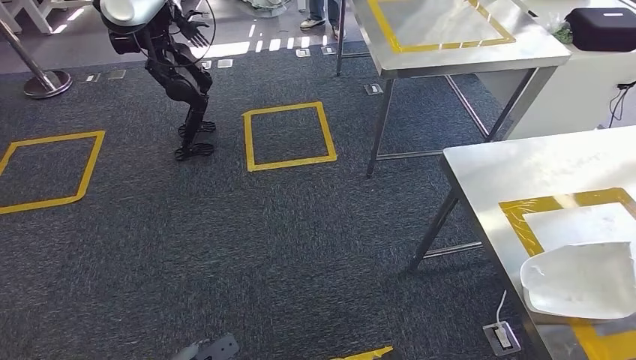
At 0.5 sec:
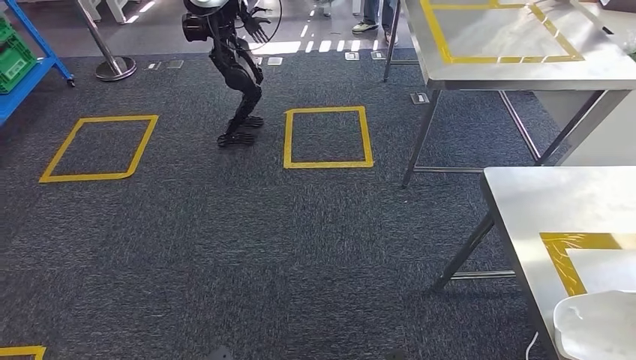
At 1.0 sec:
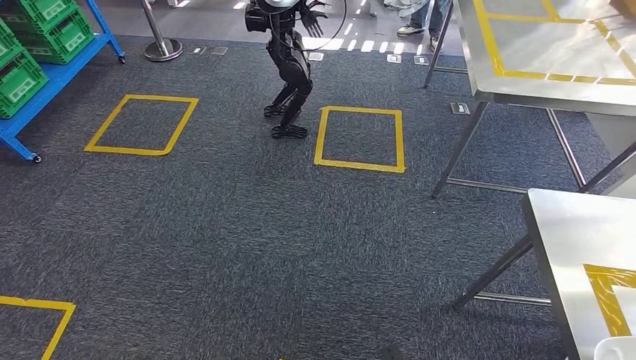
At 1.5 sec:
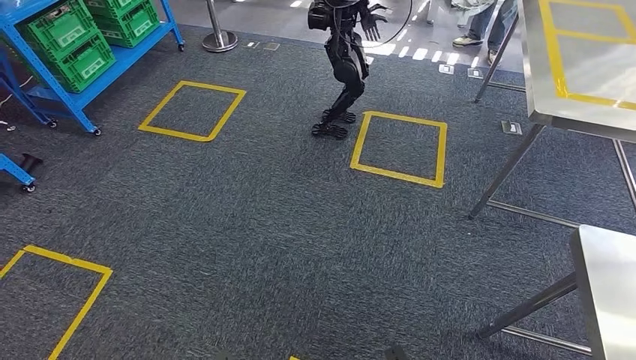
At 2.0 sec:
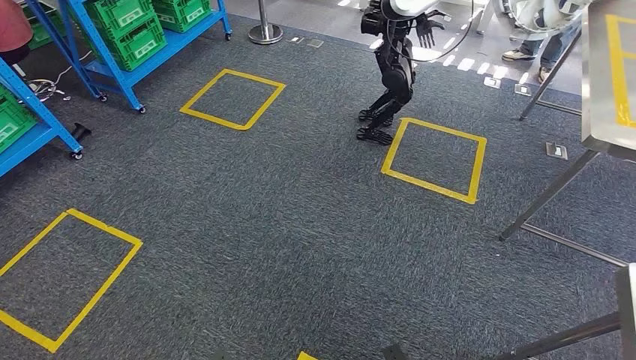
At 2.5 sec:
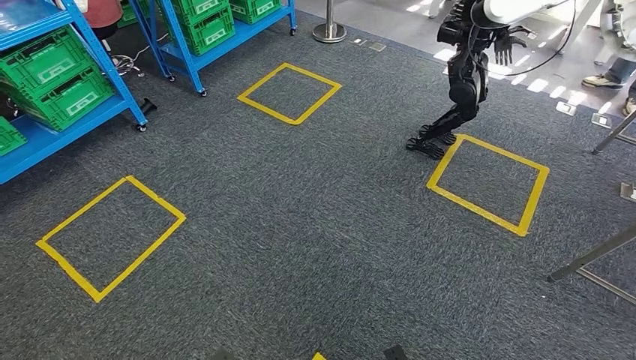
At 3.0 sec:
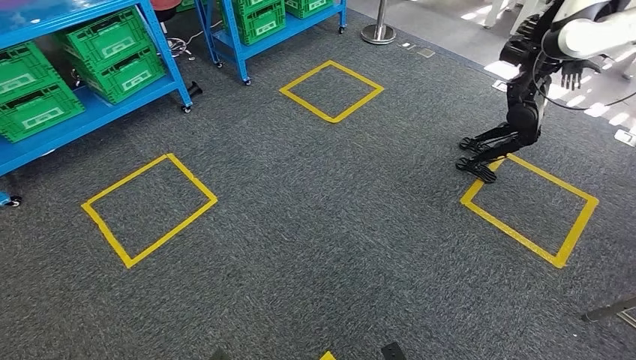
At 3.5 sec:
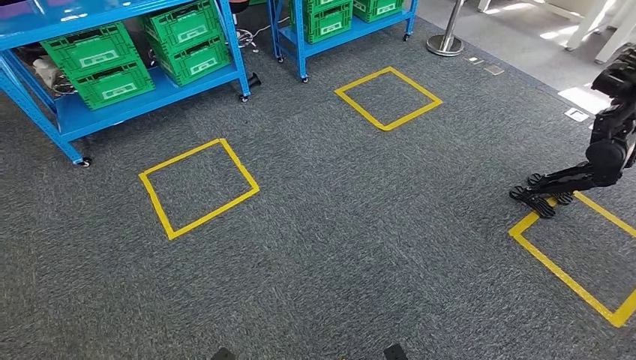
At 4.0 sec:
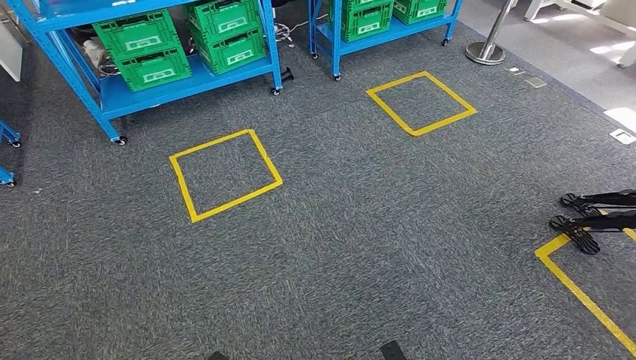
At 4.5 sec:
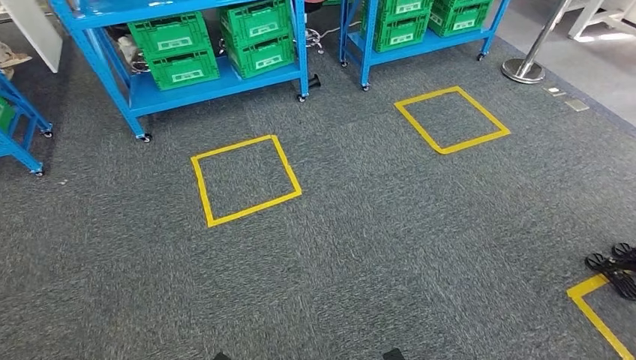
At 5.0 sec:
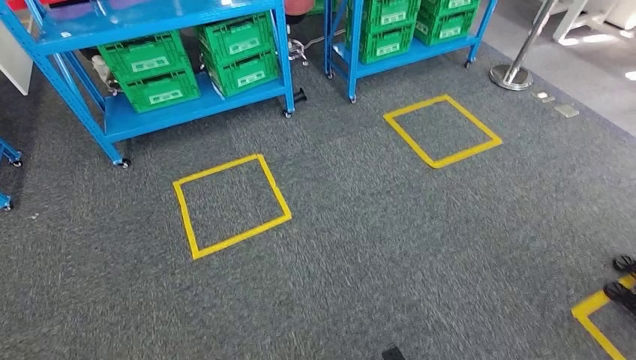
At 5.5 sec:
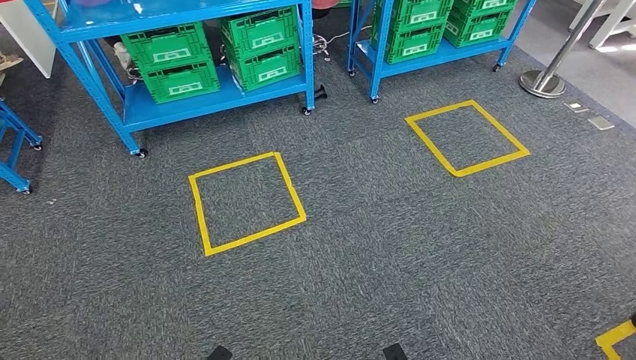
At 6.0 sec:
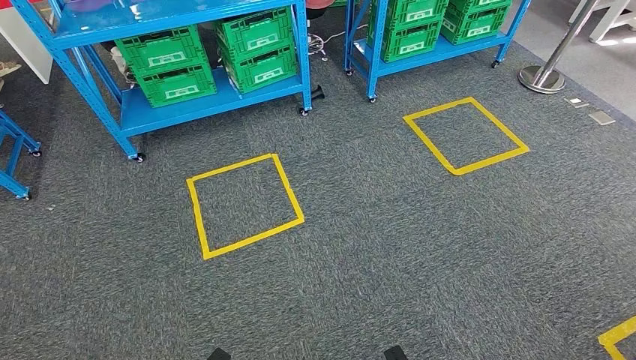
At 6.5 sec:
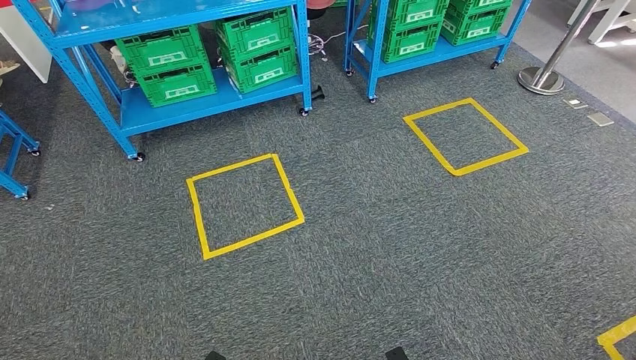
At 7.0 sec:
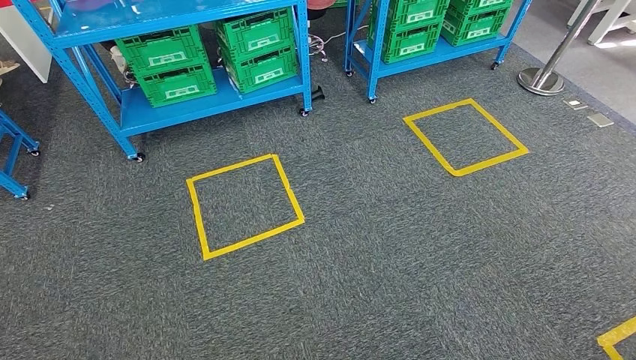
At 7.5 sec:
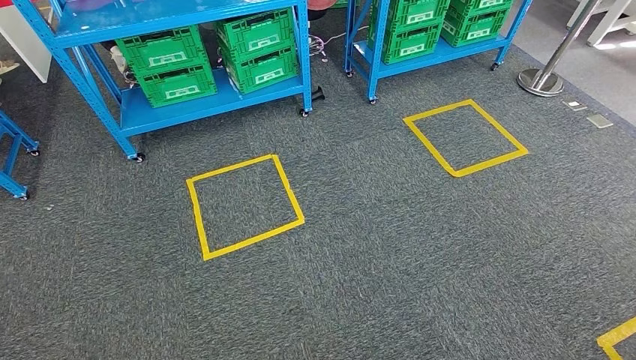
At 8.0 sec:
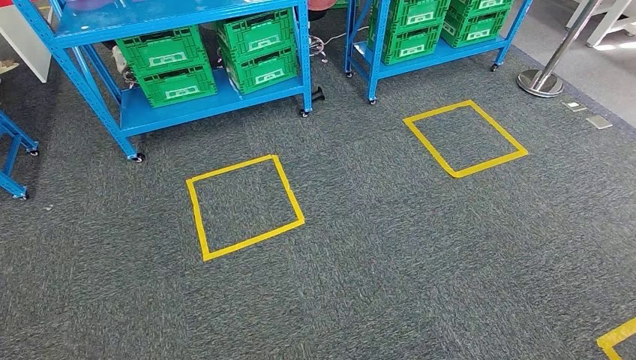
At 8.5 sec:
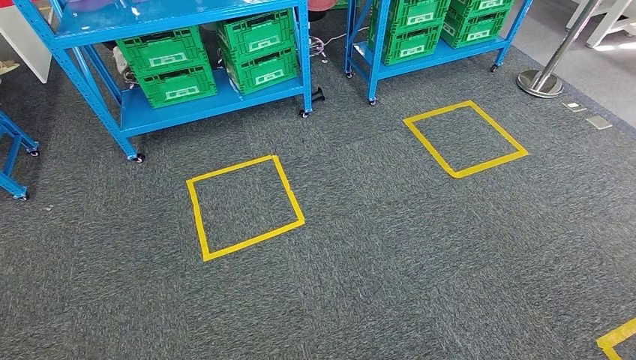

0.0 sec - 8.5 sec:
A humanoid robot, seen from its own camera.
Step, 0.0 sec - 8.5 sec: Move to the initial position at the workbench.
6.5 sec - 8.5 sec: The right hand goes about 10 cm backward and to the right; the left hand heads backward and to the left, covering roughly 15 cm.

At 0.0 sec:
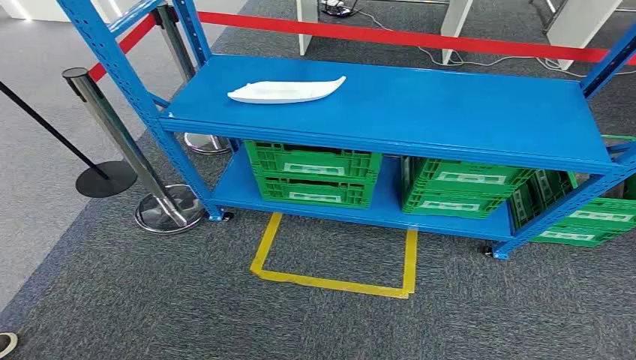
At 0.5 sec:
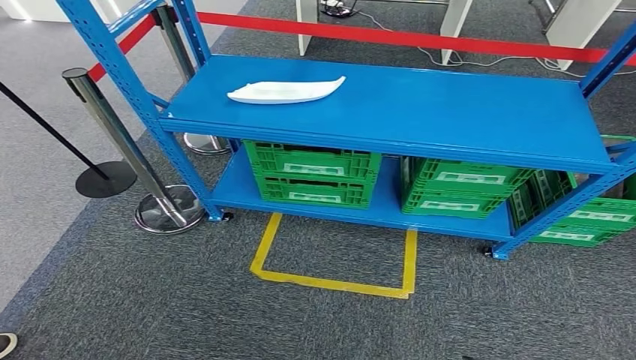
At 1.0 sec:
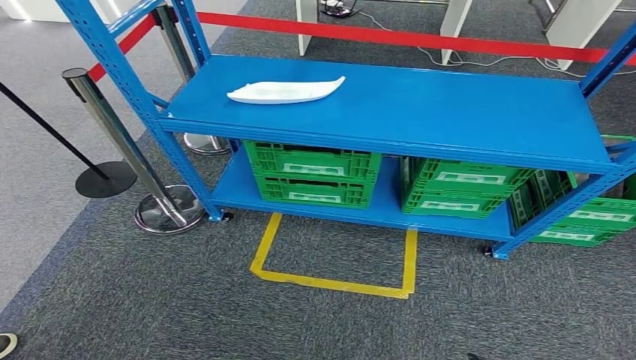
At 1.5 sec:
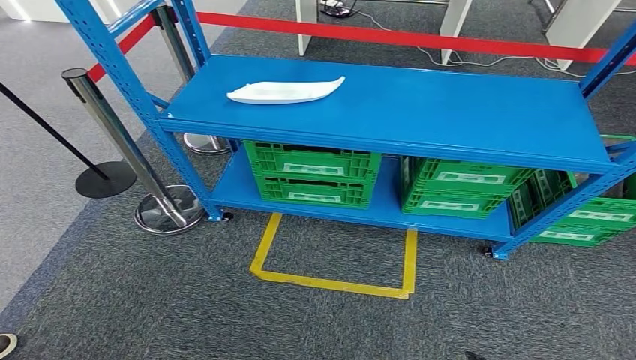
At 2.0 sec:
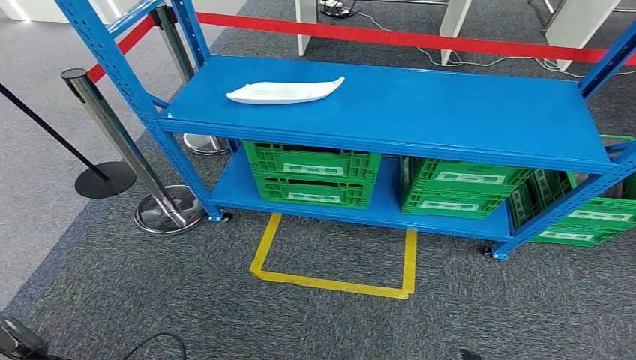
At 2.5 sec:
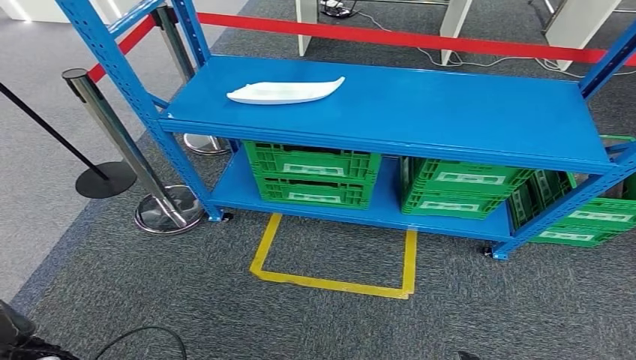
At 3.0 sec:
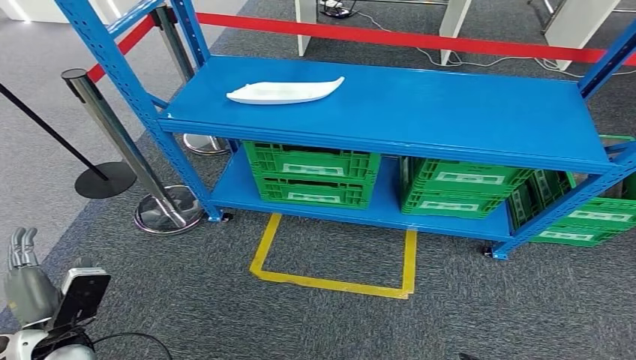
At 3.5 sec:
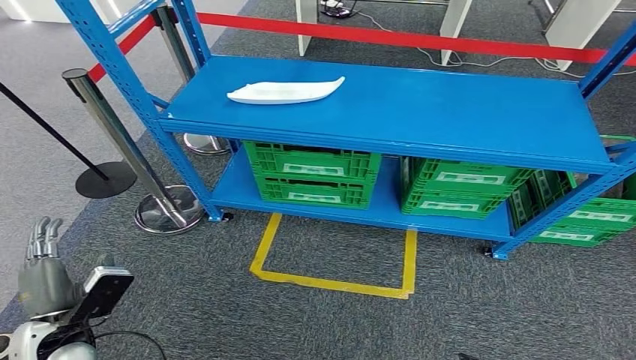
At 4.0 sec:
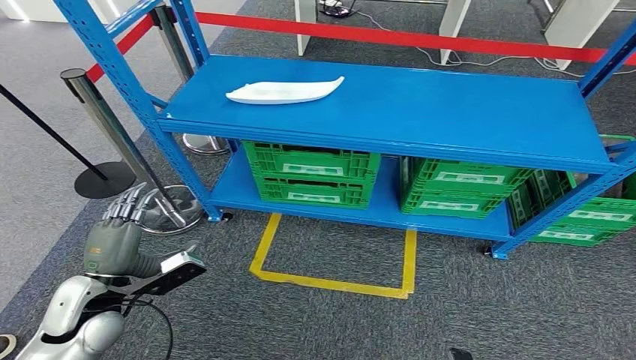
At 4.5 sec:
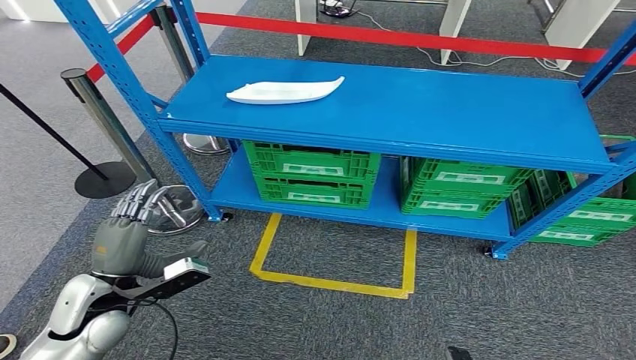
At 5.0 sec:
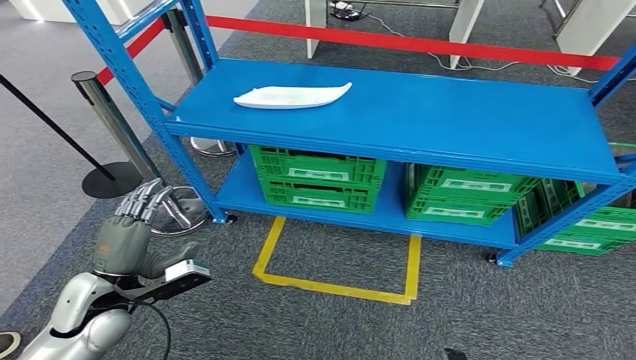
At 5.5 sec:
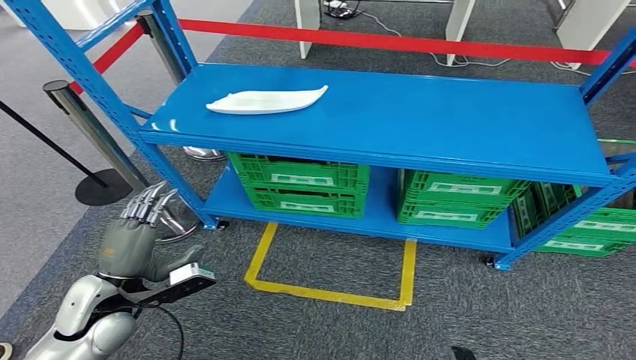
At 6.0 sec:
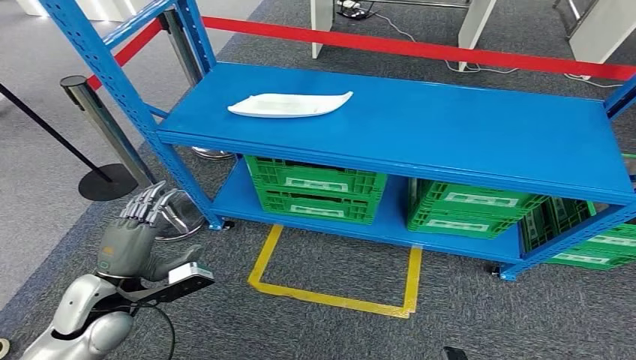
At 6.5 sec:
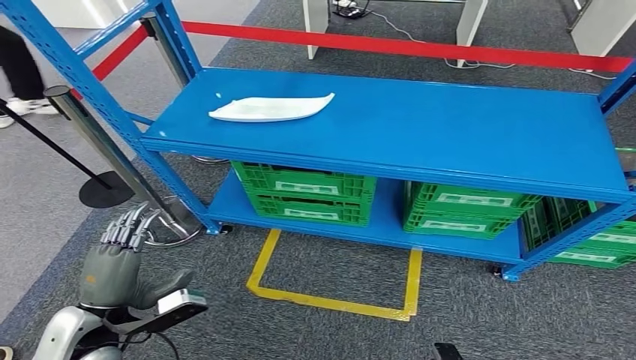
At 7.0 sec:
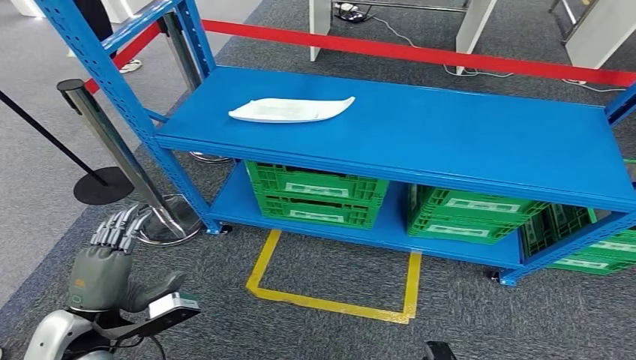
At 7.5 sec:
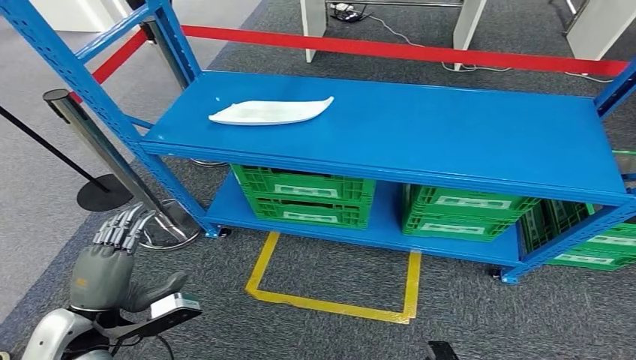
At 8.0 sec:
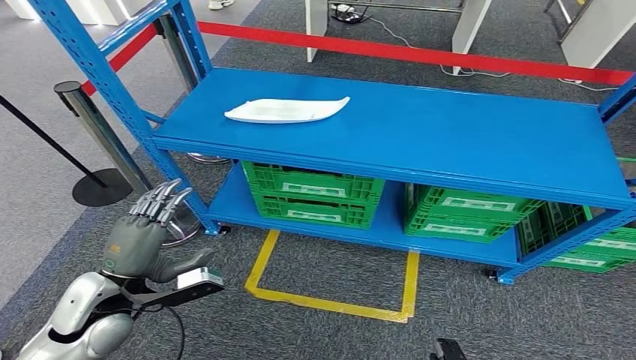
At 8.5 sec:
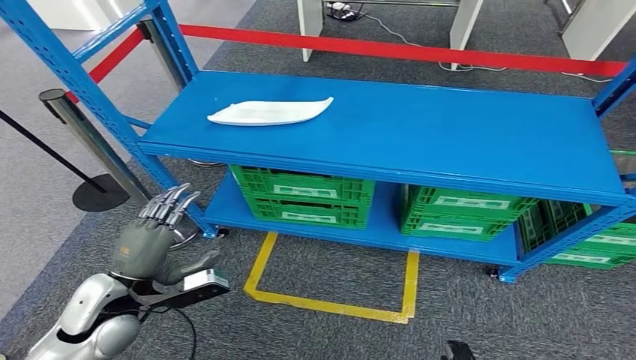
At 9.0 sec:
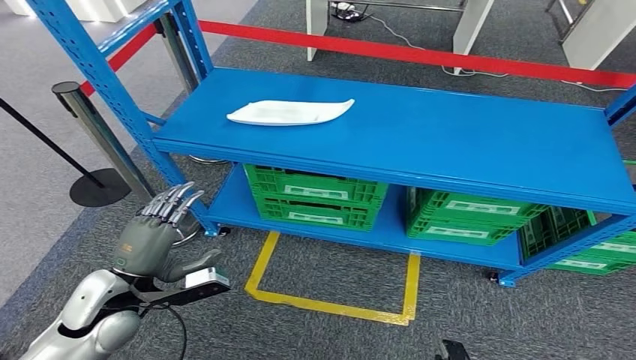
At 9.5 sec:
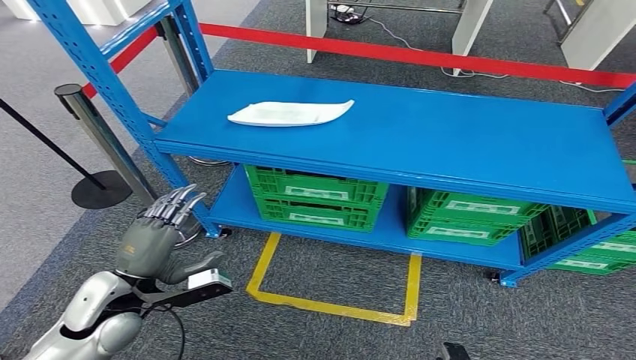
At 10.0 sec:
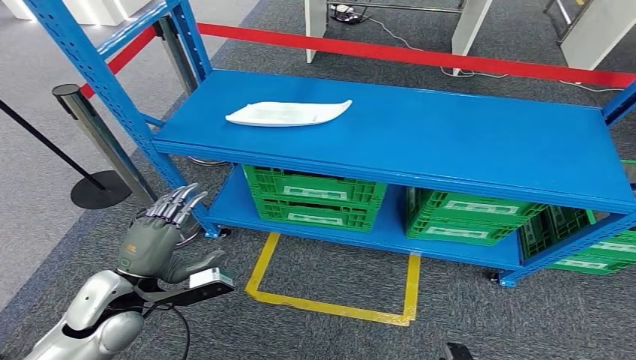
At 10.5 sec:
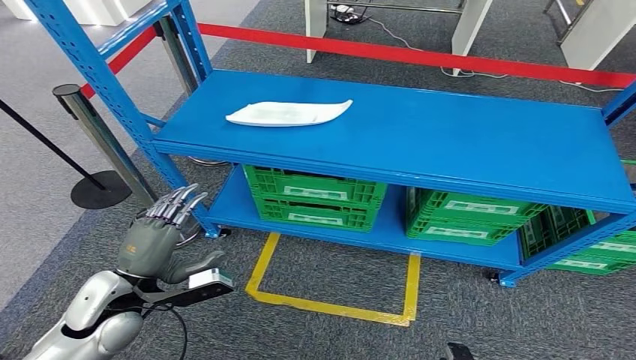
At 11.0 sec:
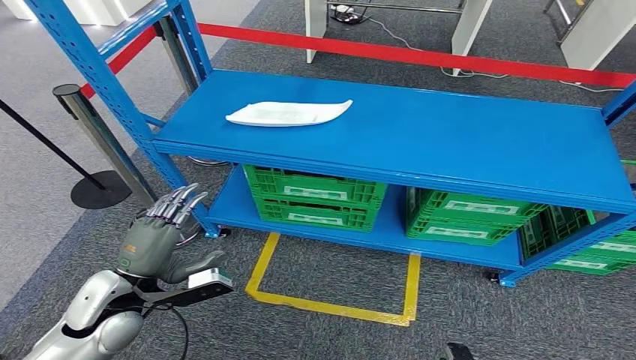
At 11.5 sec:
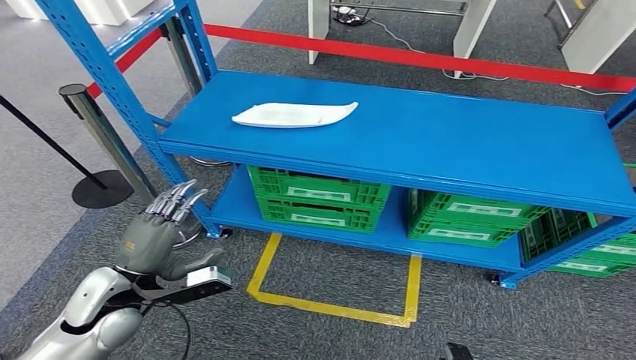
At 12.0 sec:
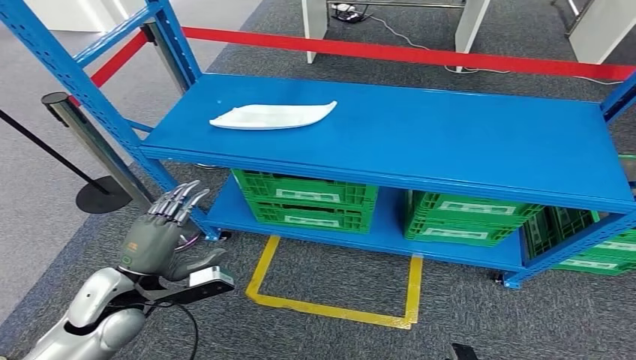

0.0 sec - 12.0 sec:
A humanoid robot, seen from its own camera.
2.0 sec - 4.0 sec: The left hand travels upward, forward and to the right by roughly 20 cm.
8.0 sec - 10.0 sec: The hands move only a little.
10.0 sec - 12.0 sec: Neither hand changes place.
